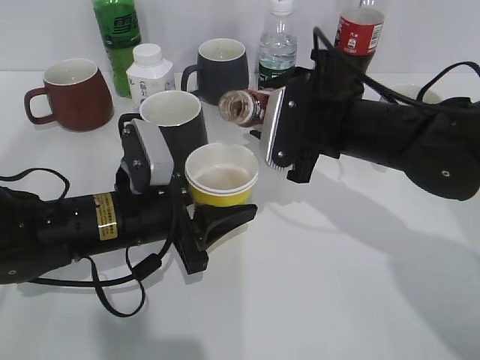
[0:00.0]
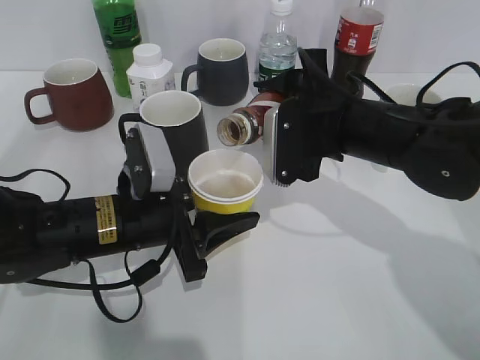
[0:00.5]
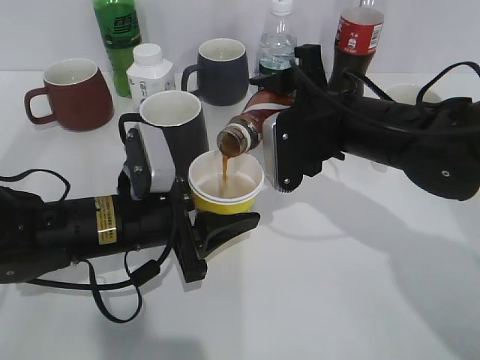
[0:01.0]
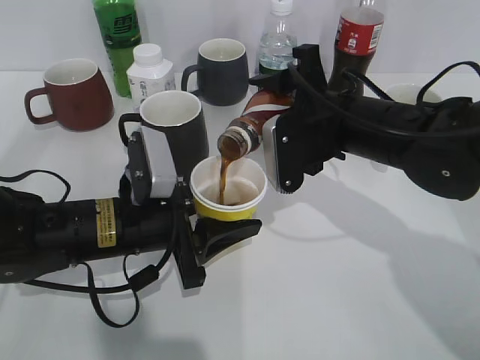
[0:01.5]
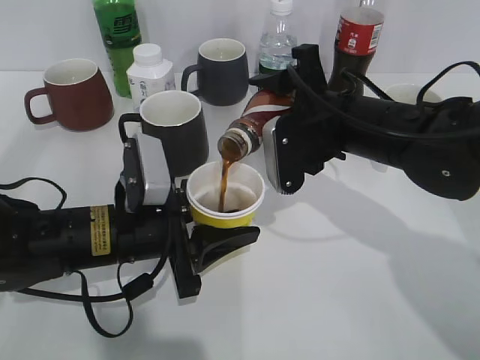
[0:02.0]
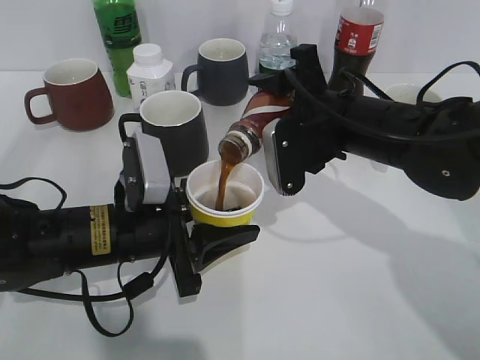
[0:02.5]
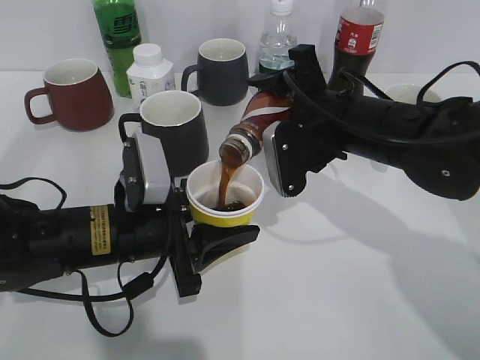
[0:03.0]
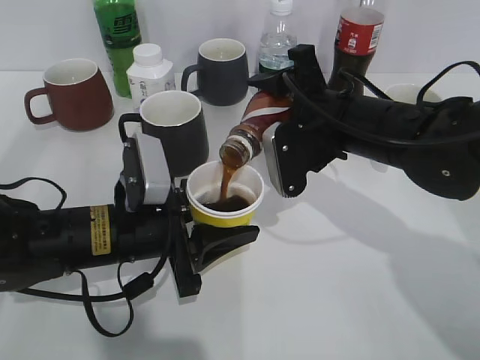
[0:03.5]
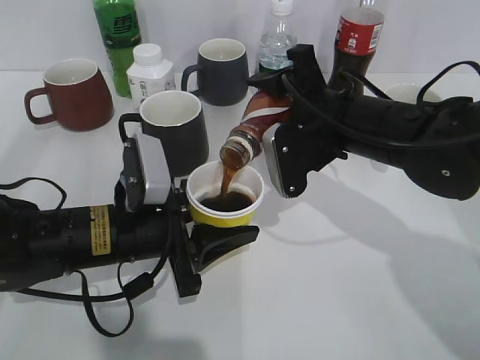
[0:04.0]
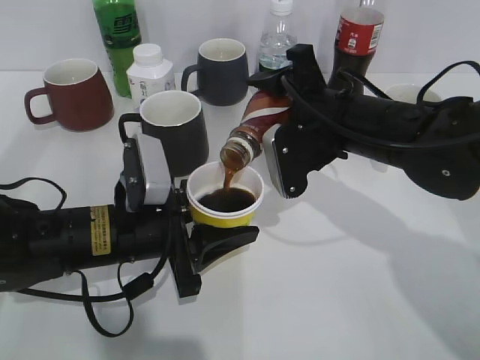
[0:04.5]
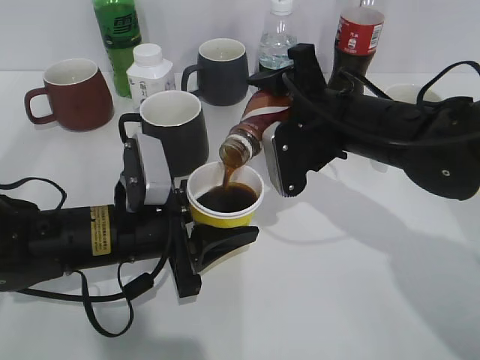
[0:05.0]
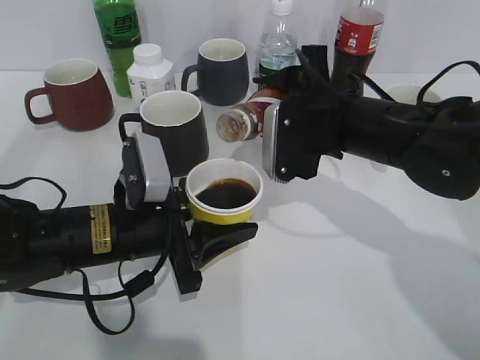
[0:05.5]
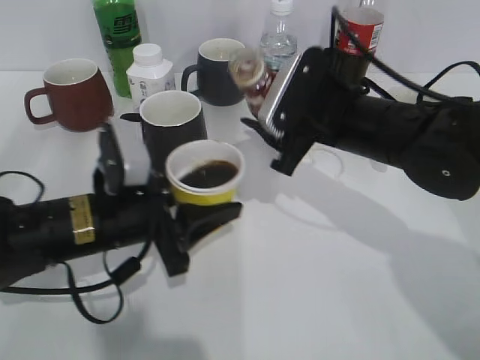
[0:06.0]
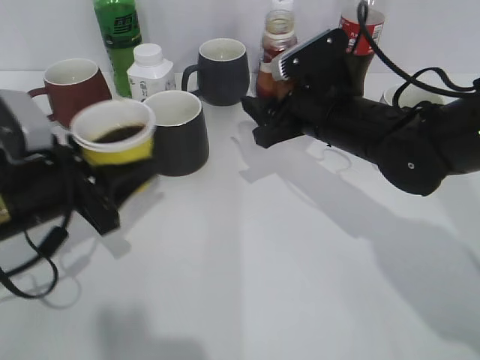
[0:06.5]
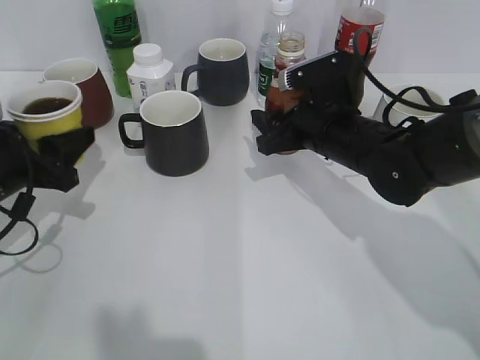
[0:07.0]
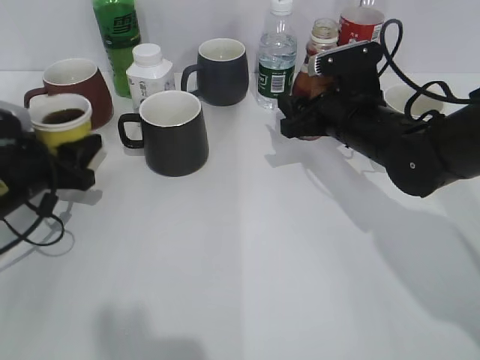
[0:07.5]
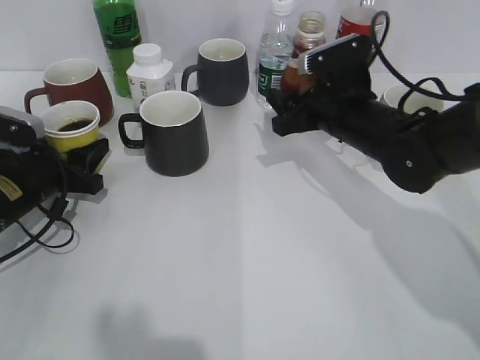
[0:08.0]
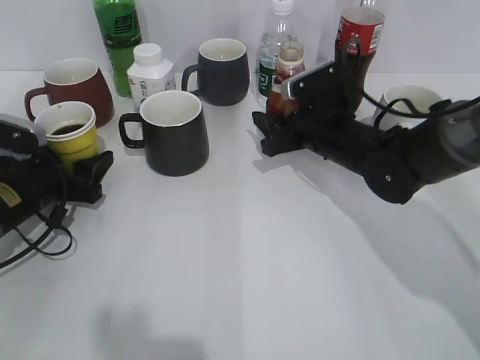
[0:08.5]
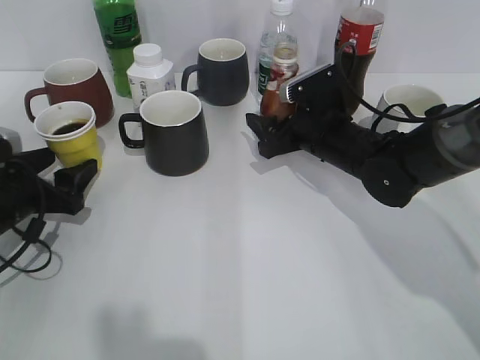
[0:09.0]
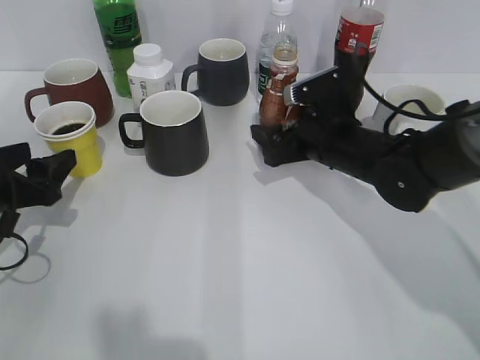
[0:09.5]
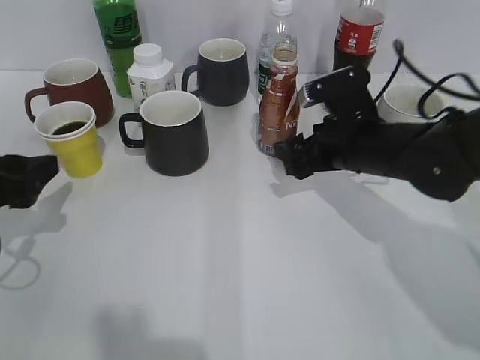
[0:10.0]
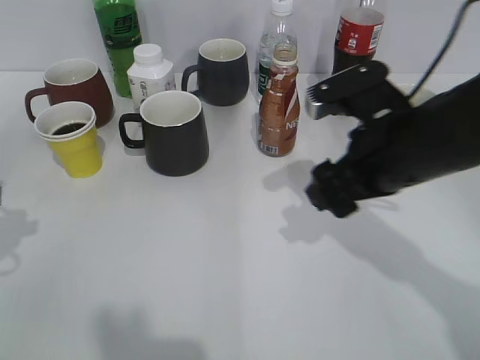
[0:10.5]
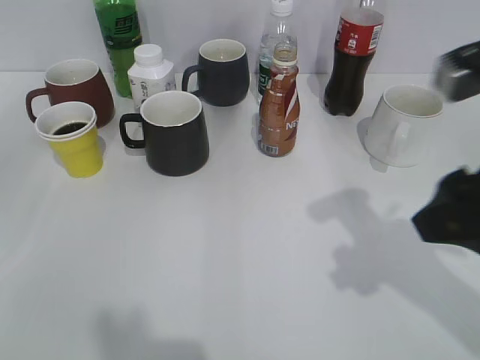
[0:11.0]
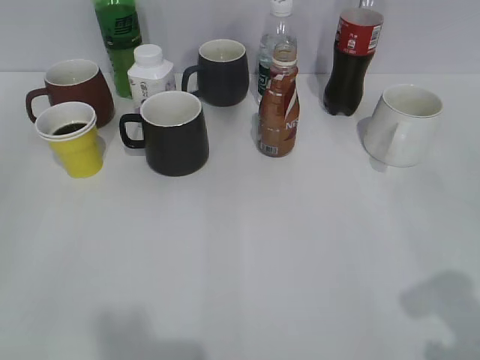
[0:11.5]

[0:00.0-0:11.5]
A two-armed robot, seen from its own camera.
Step, 0:00.0 to 0:05.5: Pour the coffee from bottle to cup with right gripper.
Step, 0:06.0 to 0:08.0: Place the yellow paper cup on the table with left gripper.
Step, 0:08.5 to 0:09.5: Place the coffee bottle on the table with right gripper.
0:02.0 to 0:04.0: The grippers stay close to where they were, moving slightly.
0:06.0 to 0:07.5: The right gripper ends up about 5 cm from where it was. The left gripper goes about 15 cm to the left and forward.
0:07.5 to 0:09.5: The left gripper goes about 5 cm backward, and opens its fingers; the right gripper opens its fingers.
0:09.5 to 0:11.5: The left gripper shifts about 25 cm backward and upward. Meanwhile the right gripper goes approximately 35 cm backward, upward and to the right.

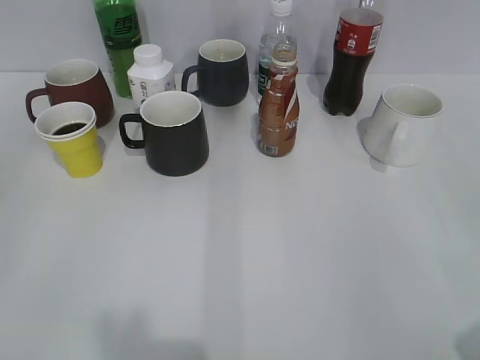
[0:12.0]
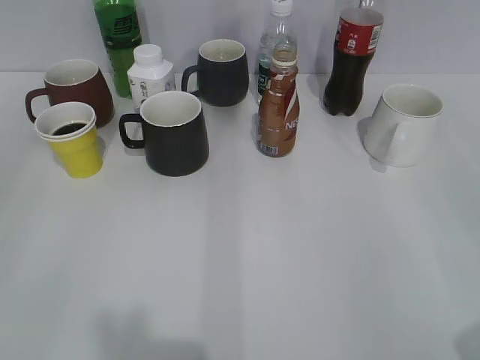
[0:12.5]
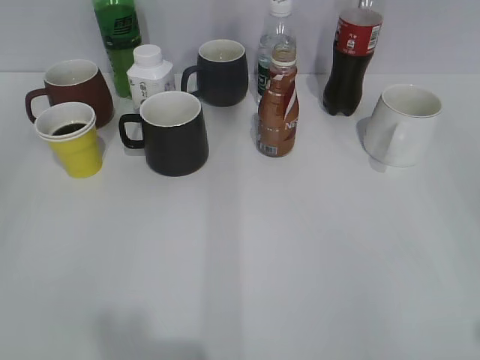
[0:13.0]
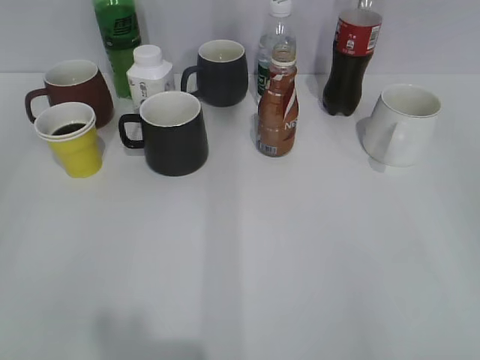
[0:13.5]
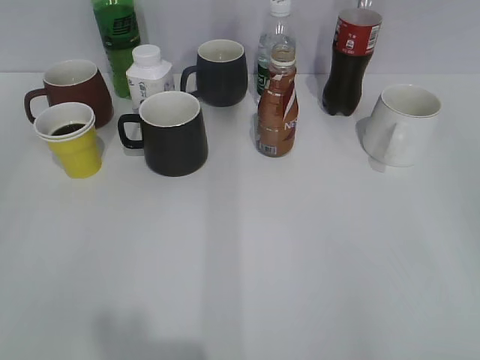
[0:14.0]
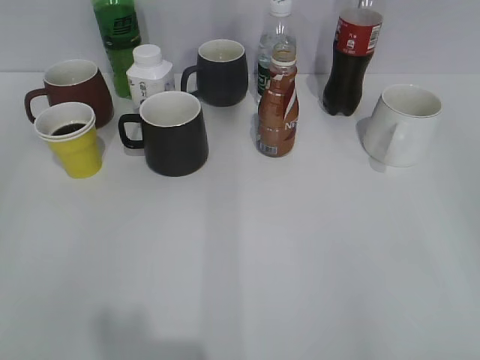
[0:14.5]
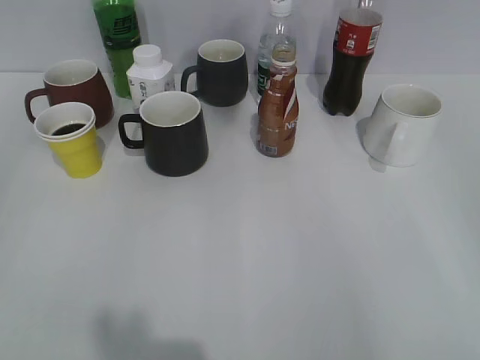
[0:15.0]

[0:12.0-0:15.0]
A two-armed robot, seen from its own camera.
0:13.5 to 0:15.0: Both grippers stay about where they are.

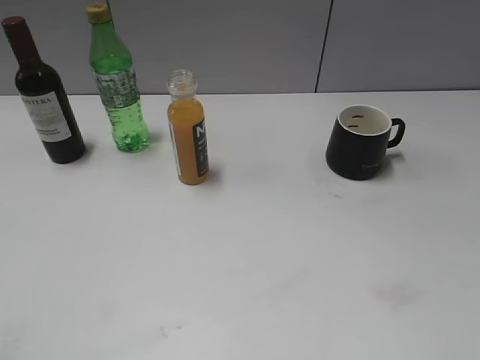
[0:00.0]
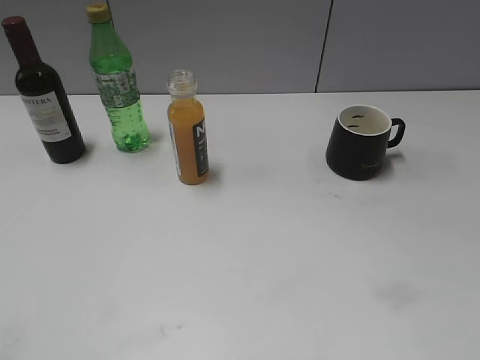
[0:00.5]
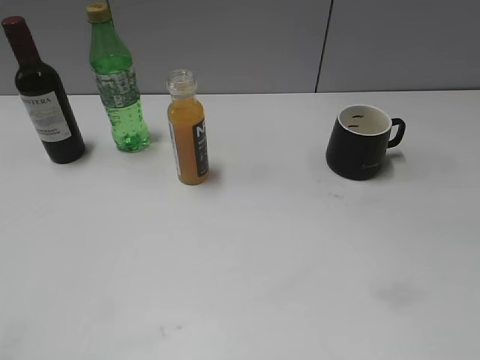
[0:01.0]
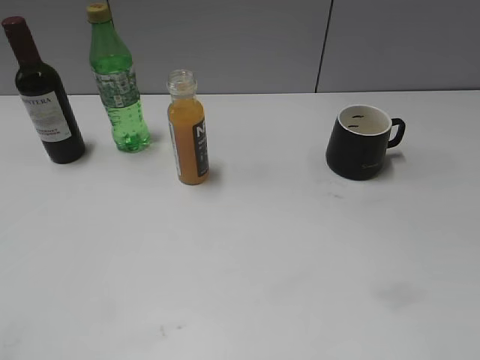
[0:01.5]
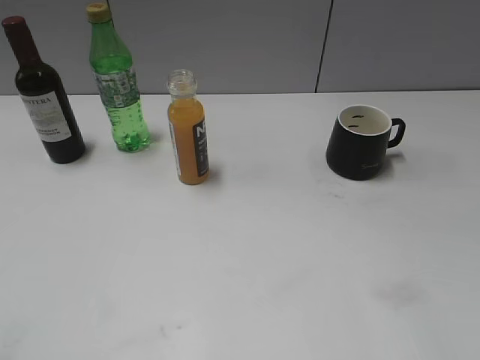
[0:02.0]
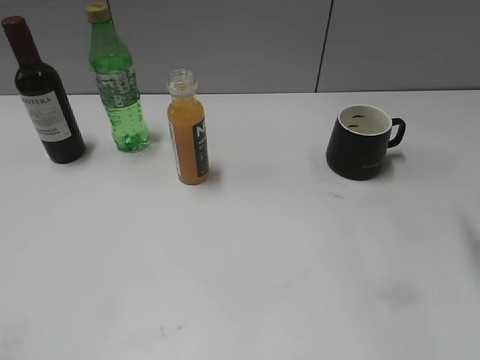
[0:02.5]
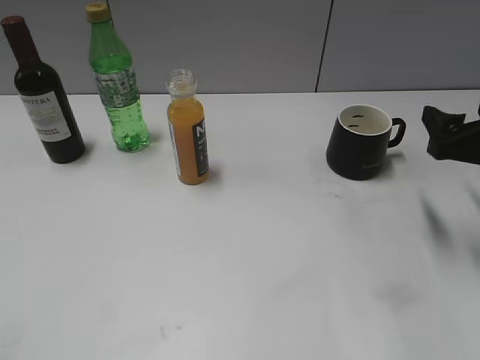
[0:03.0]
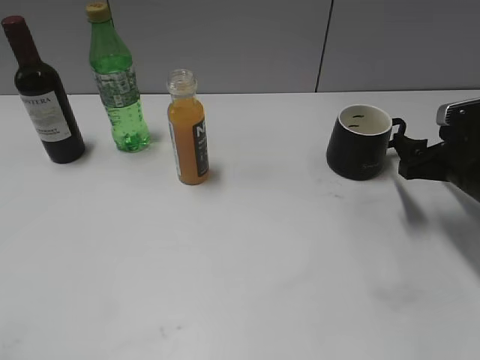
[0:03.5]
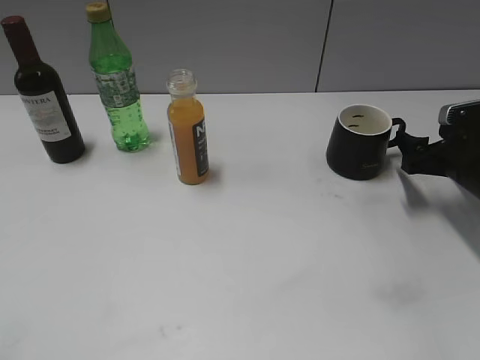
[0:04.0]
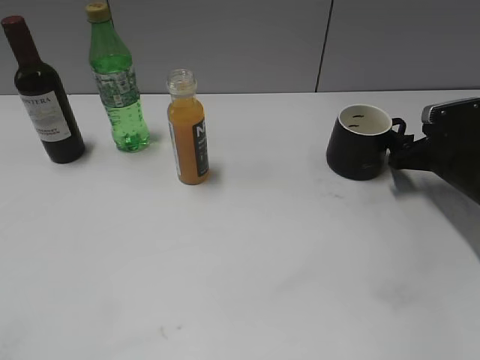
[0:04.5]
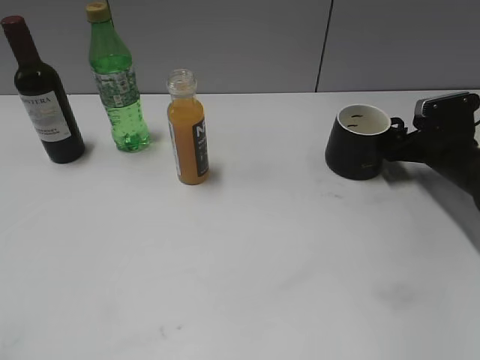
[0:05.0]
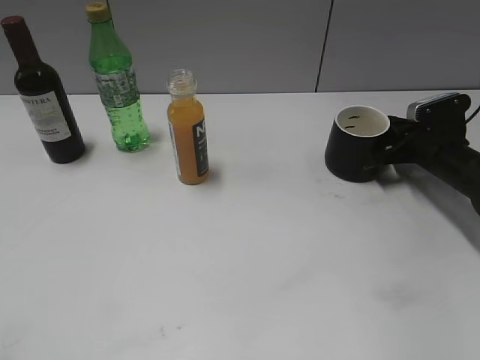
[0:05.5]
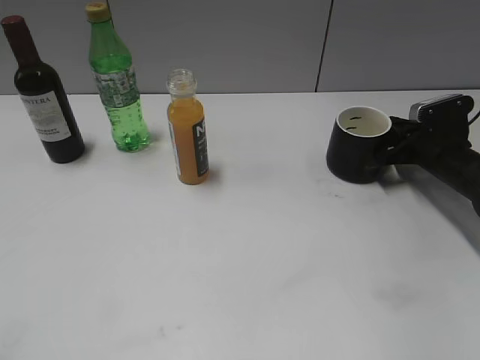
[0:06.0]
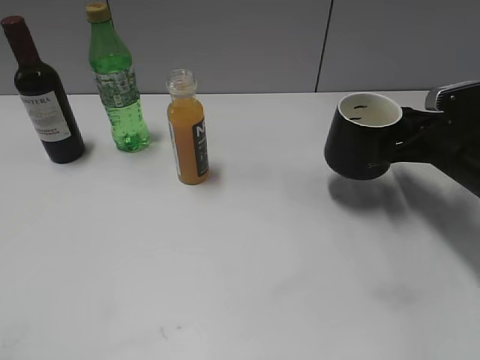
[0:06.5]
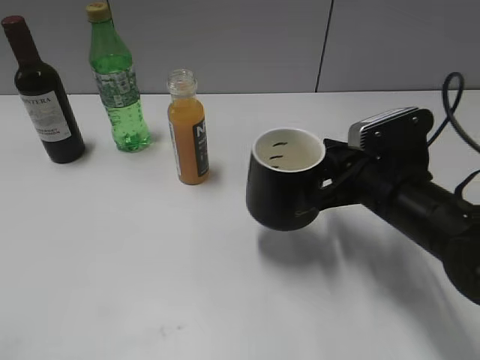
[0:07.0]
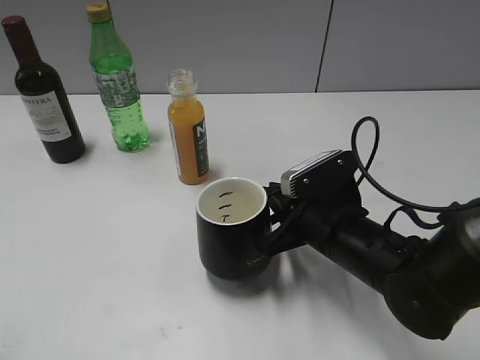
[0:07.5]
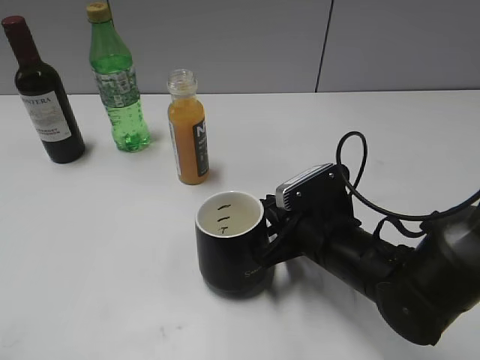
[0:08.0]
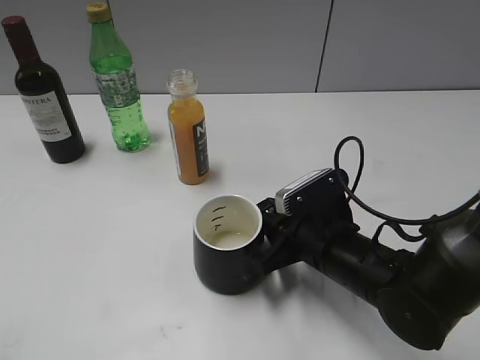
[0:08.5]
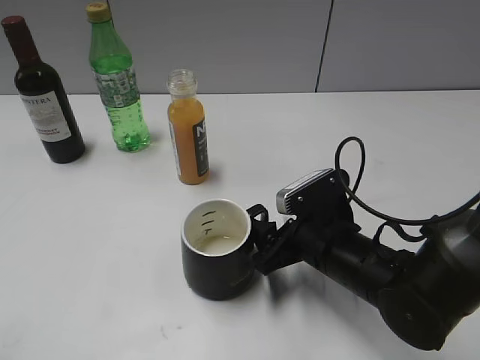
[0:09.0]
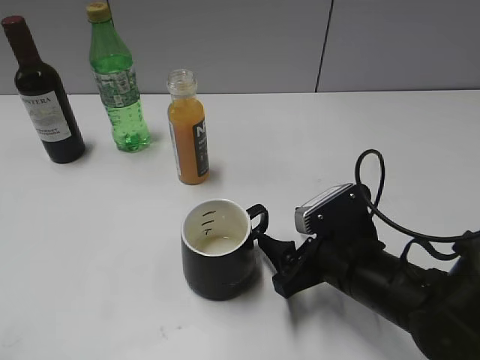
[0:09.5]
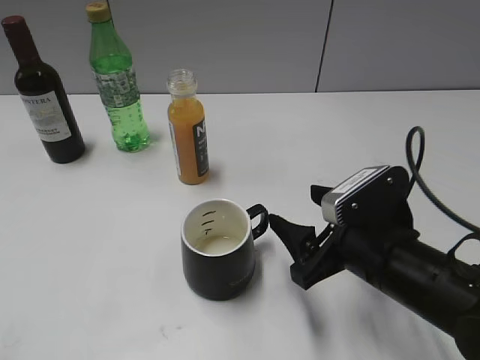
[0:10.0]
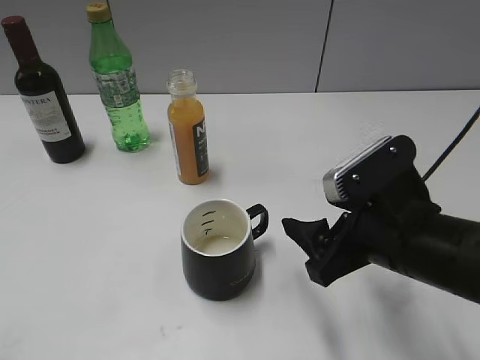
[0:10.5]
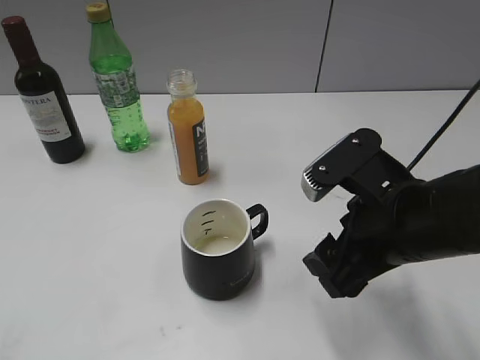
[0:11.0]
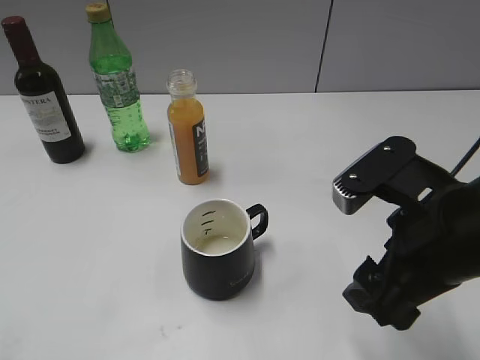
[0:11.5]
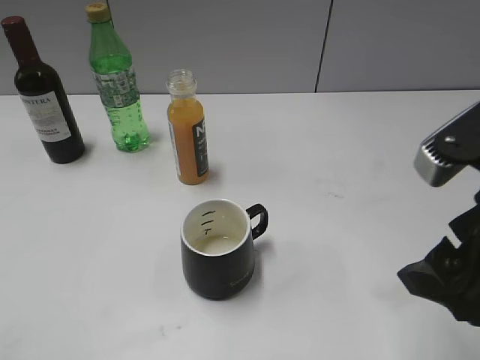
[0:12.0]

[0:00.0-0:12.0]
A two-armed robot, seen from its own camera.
Step, 0:03.0 to 0:05.5: Grasp the black cup with right gripper.
Step, 0:06.0 to 0:08.5: Place the black cup in the center of view with right gripper.
0:02.0 to 0:04.0: The right gripper goes about 35 cm forward and downward.
0:04.0 to 0:06.0: The right gripper goes some 5 cm forward, and closes up.
0:06.0 to 0:08.0: The right gripper goes roughly 25 cm to the left and backward.
0:08.0 to 0:10.0: The right gripper moves roughly 5 cm, and opens.
0:10.0 to 0:12.0: The right gripper moves upward and backward, some 15 cm.
